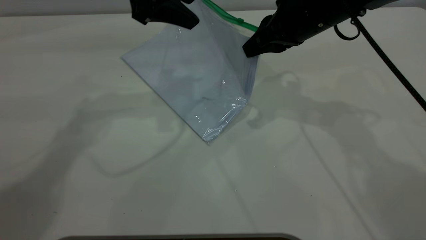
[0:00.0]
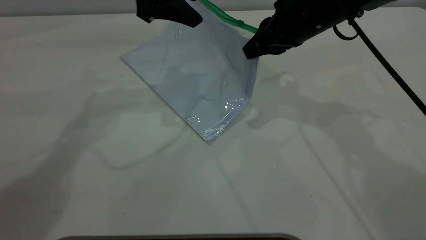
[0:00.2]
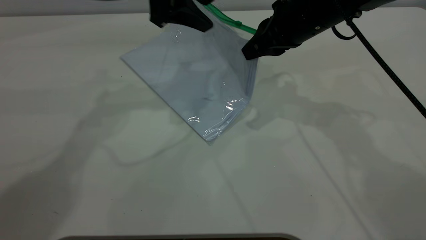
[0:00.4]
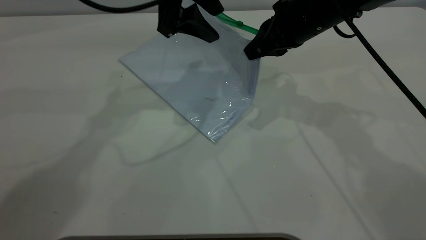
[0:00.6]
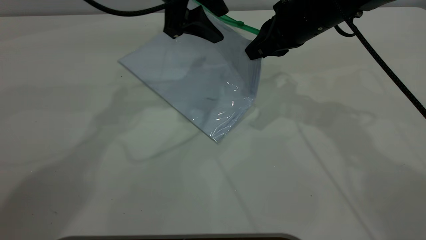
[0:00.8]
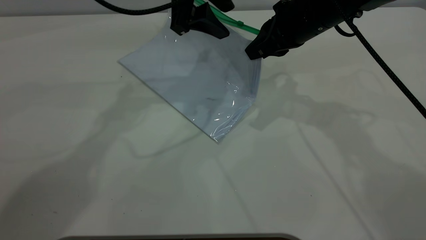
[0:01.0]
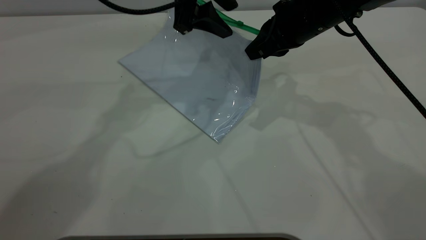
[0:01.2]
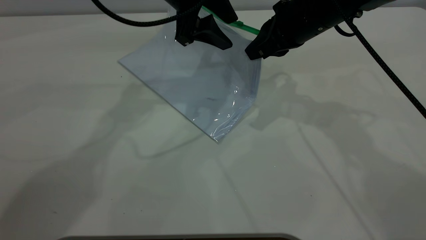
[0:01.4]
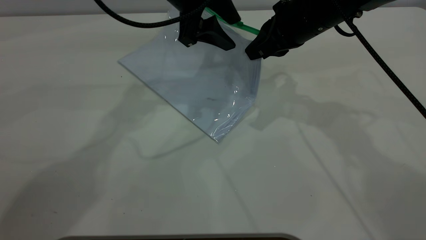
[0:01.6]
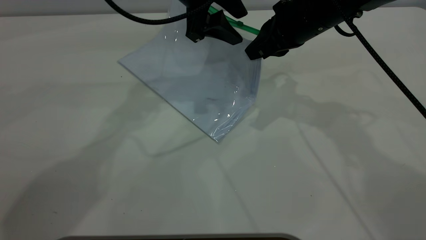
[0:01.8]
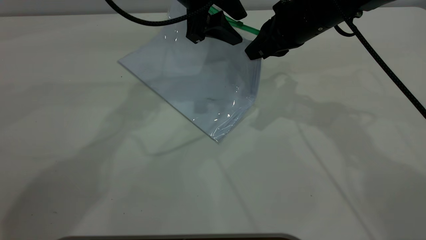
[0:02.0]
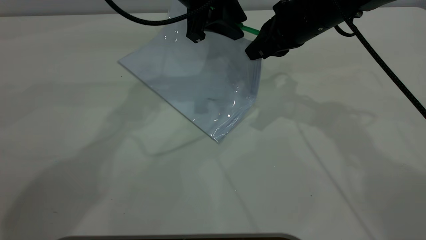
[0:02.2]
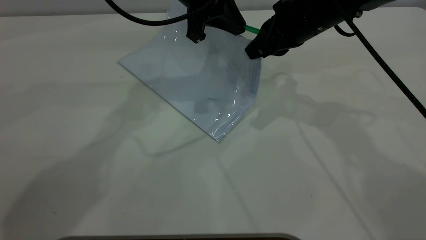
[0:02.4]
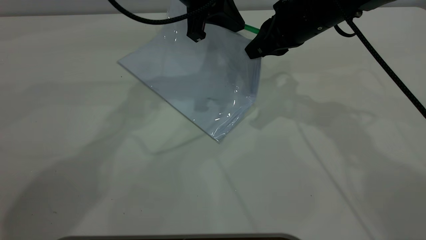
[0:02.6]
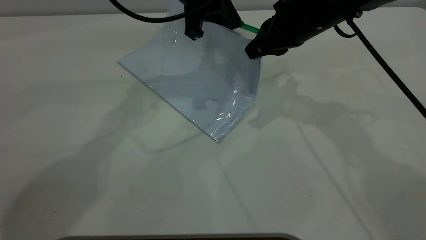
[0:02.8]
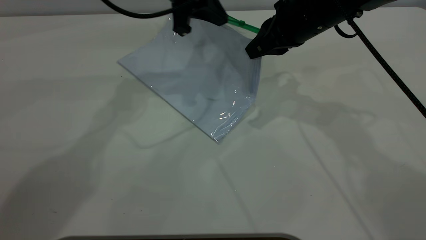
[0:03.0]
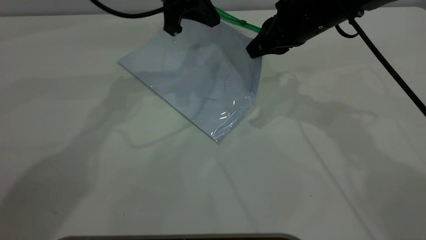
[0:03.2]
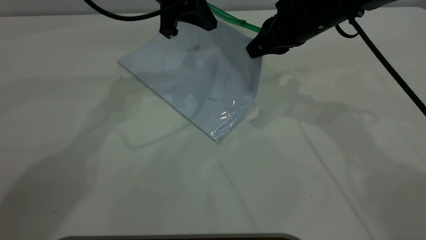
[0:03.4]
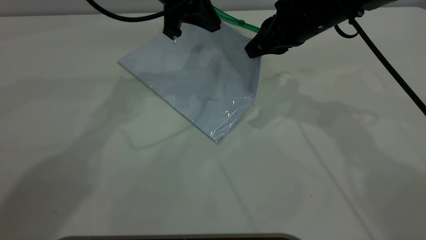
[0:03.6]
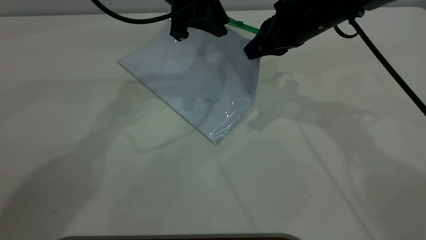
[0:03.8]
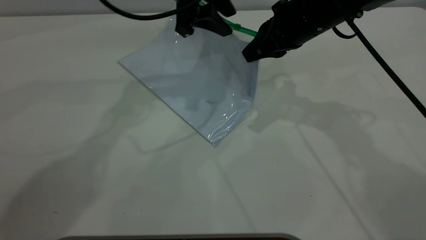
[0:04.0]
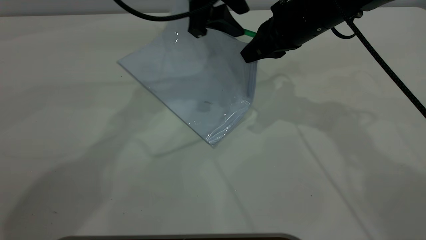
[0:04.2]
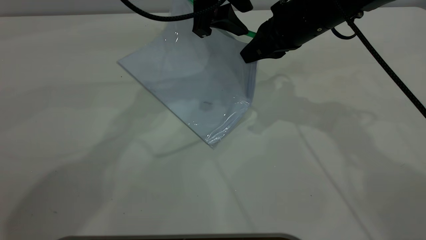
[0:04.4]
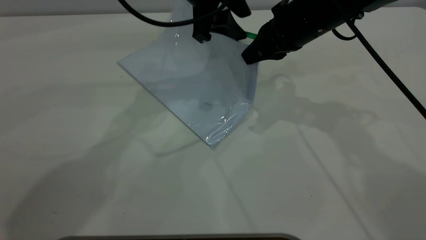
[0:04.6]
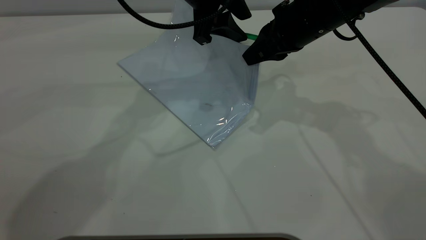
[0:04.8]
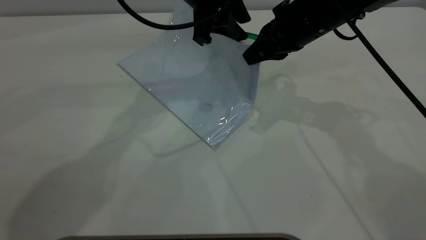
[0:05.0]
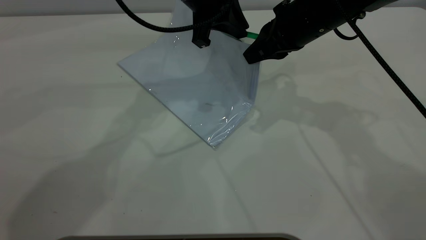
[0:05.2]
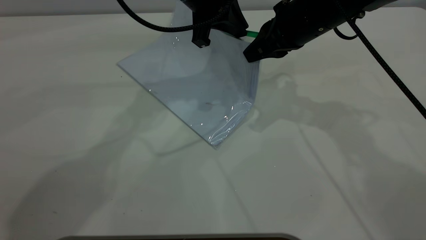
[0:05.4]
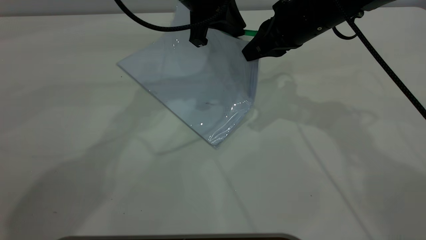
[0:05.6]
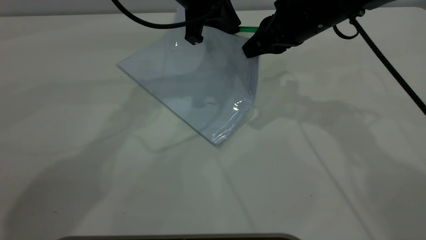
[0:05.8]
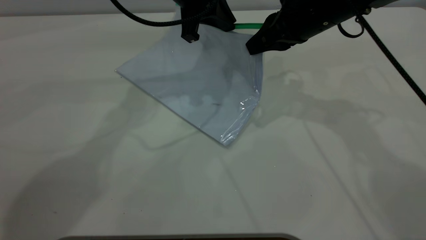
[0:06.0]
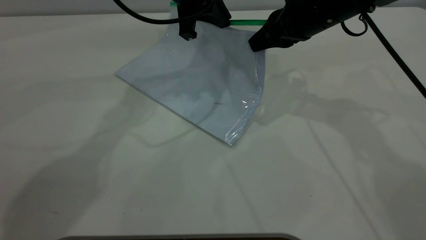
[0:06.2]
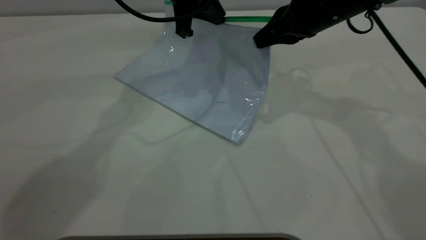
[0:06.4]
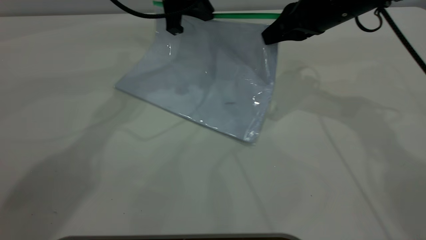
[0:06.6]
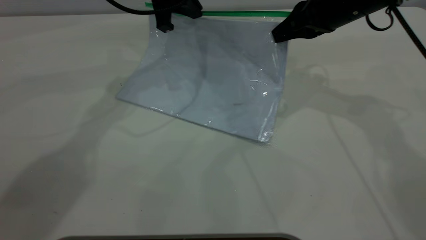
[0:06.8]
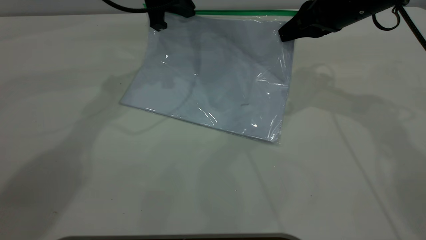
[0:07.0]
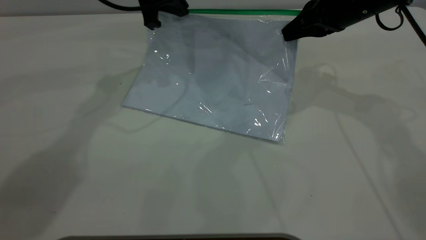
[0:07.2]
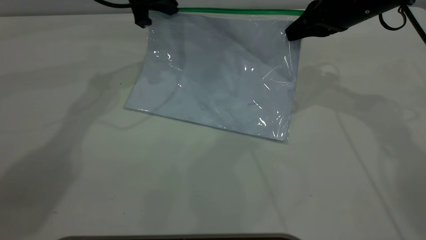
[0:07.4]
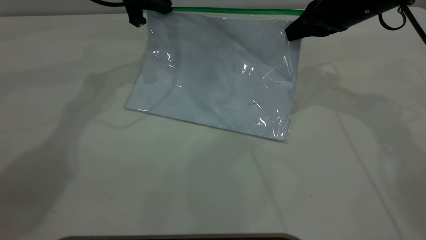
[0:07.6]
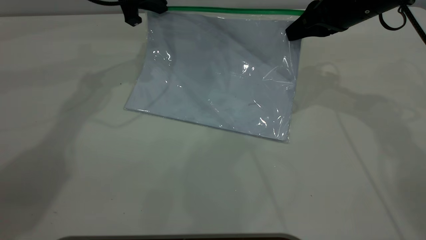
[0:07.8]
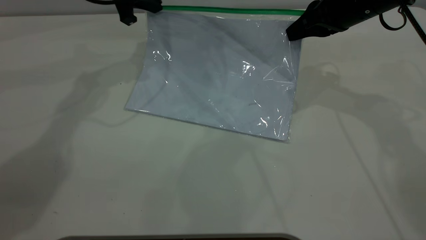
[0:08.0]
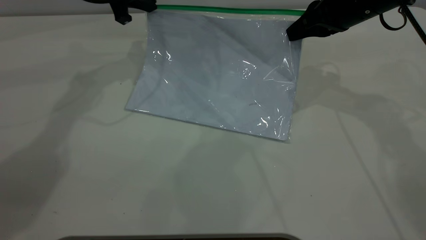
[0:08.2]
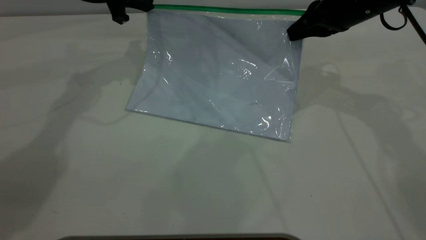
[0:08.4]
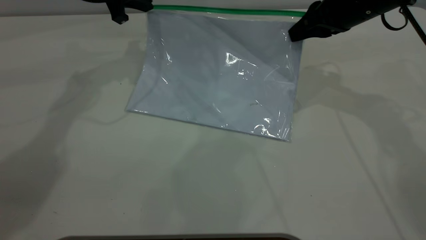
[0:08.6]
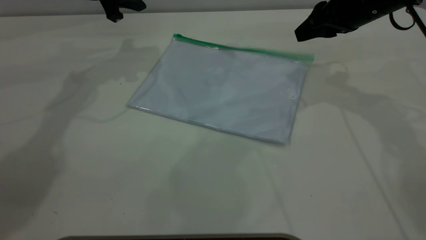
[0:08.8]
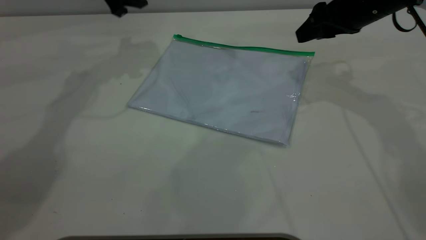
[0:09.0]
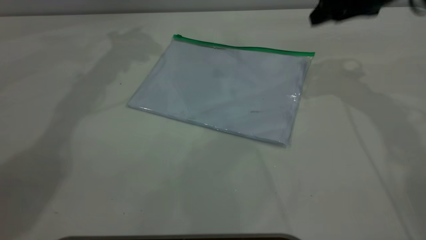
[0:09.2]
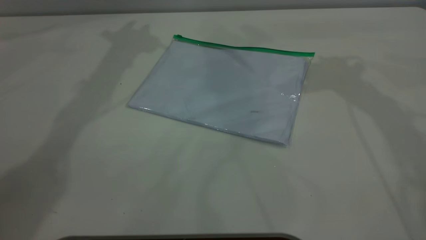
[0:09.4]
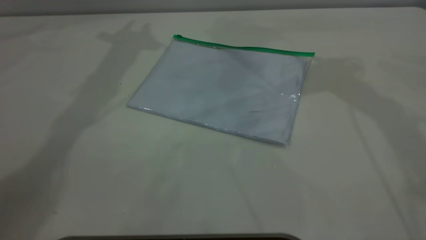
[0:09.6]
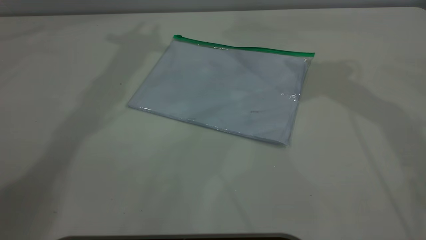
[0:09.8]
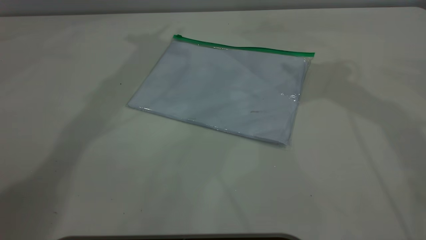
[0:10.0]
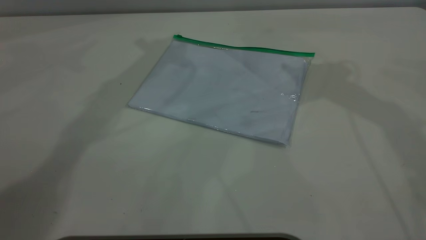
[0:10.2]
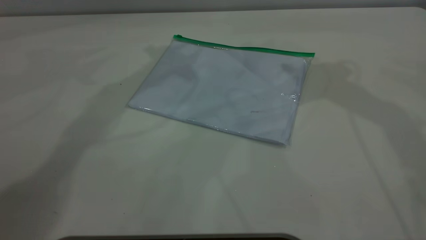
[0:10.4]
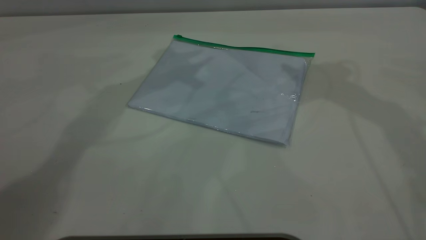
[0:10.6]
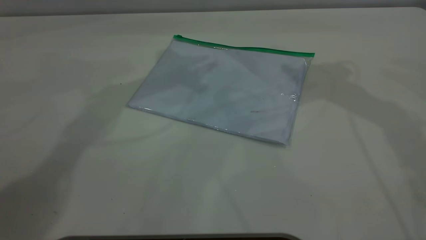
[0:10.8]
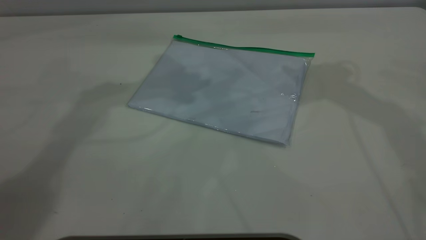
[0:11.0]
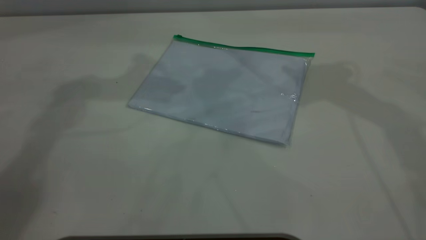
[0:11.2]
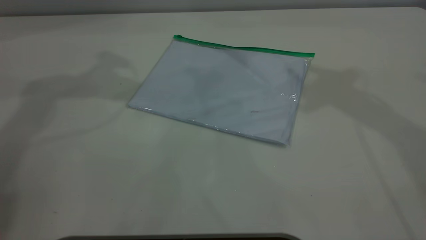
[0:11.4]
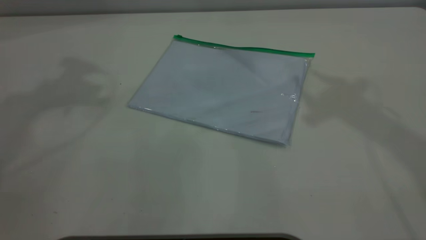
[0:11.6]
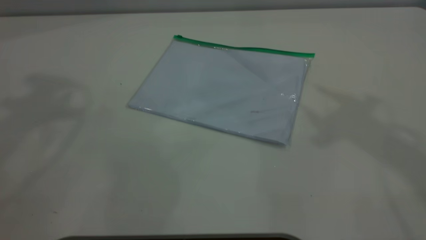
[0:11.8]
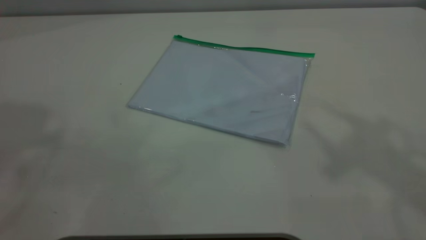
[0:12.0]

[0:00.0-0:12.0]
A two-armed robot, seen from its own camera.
Step, 0:00.0 to 0:08.6: Pulling up the zipper on the transparent plastic bag with the right gripper to close it.
0:00.0 to 0:01.6: The left gripper travels to the right by about 5 cm.
0:01.6 to 0:03.0: The left gripper closes.
0:03.0 to 0:04.4: The left gripper opens up.
0:04.4 to 0:06.0: The left gripper closes.
0:06.0 to 0:07.6: The left gripper moves to the left, some 10 cm; the right gripper shifts roughly 5 cm to the right.
0:07.6 to 0:09.0: The right gripper opens up; the left gripper opens.
0:09.0 to 0:10.4: The right gripper travels upward by approximately 15 cm.

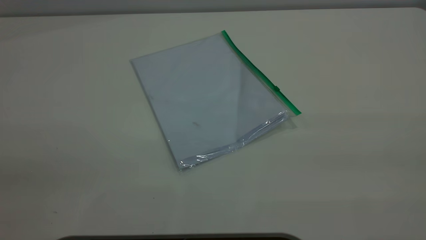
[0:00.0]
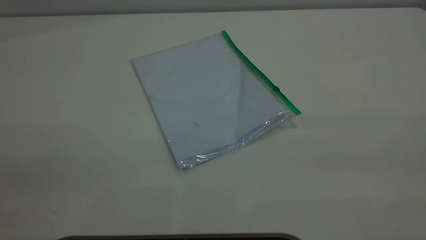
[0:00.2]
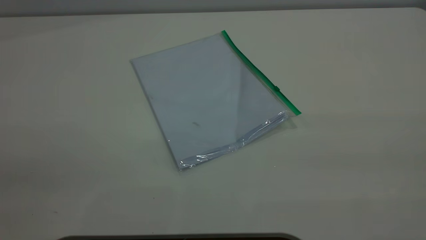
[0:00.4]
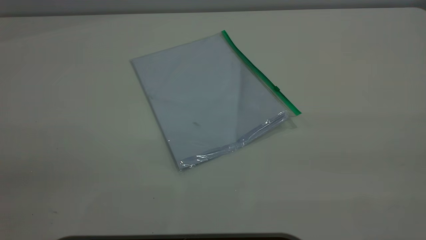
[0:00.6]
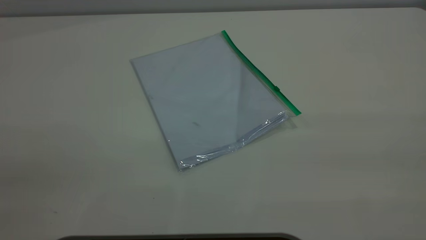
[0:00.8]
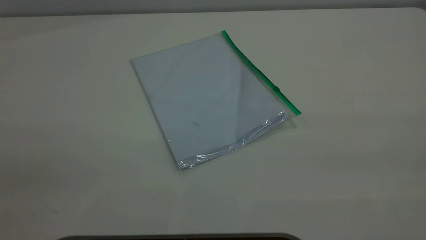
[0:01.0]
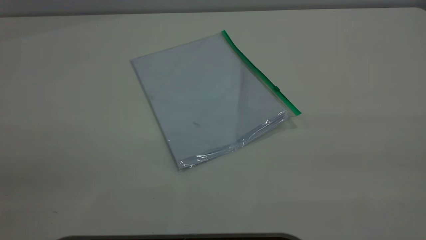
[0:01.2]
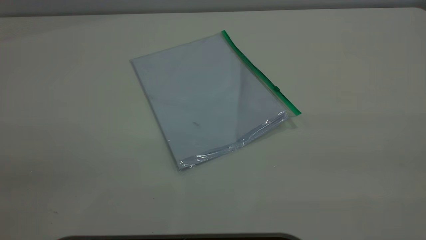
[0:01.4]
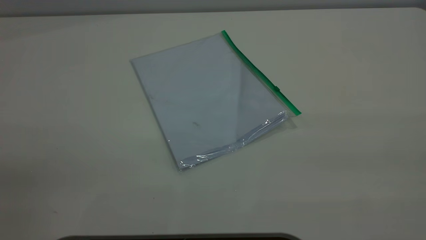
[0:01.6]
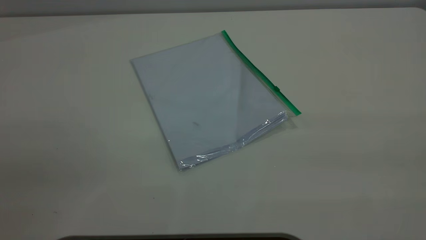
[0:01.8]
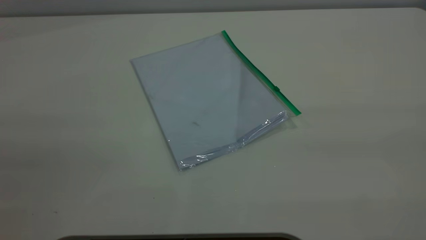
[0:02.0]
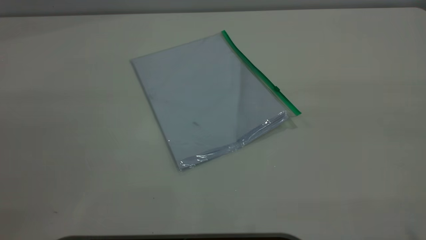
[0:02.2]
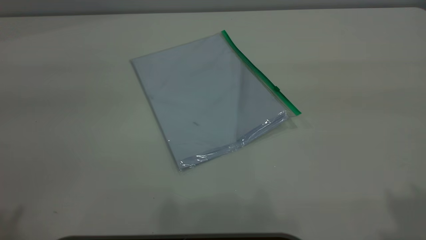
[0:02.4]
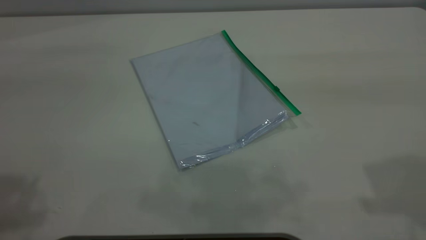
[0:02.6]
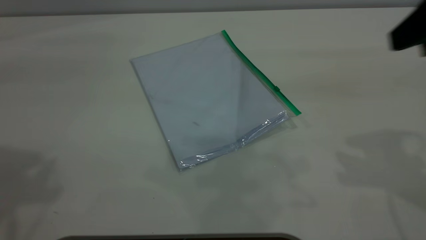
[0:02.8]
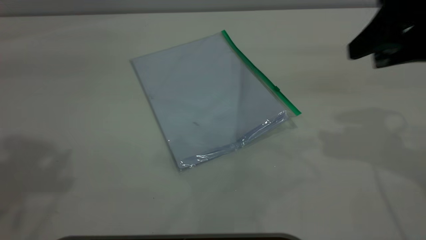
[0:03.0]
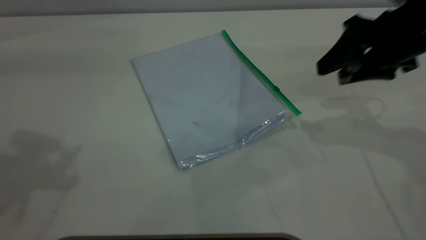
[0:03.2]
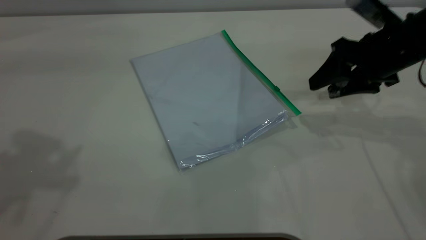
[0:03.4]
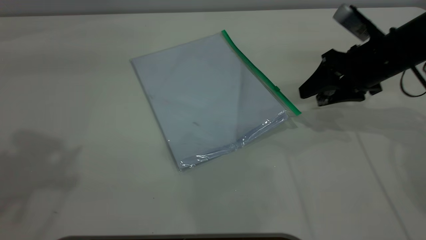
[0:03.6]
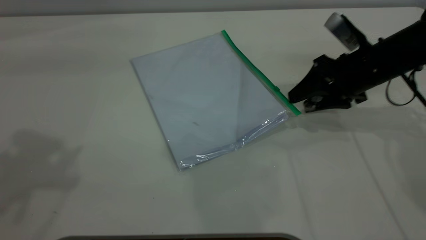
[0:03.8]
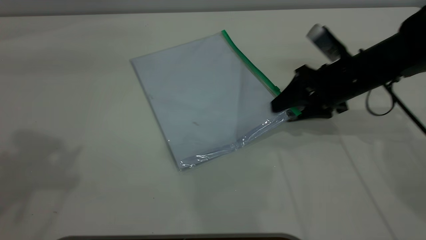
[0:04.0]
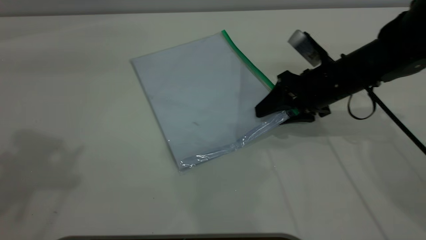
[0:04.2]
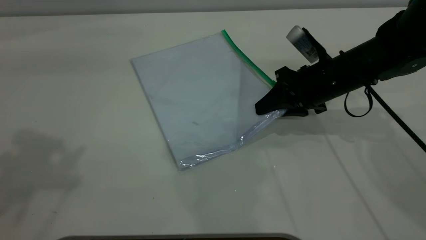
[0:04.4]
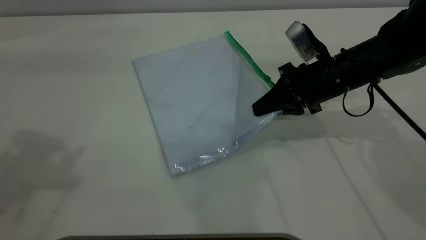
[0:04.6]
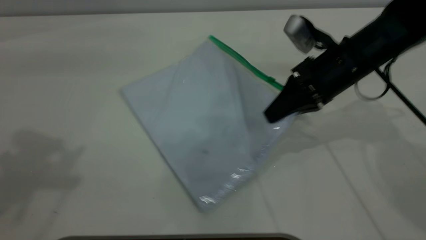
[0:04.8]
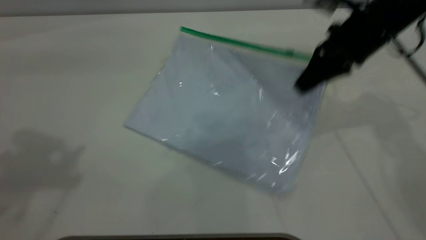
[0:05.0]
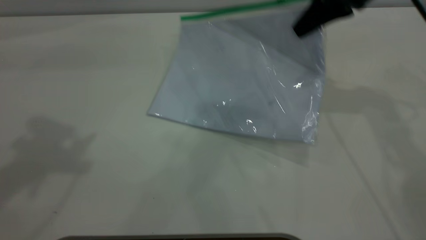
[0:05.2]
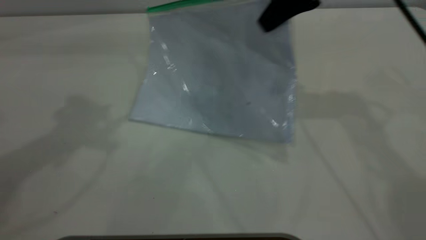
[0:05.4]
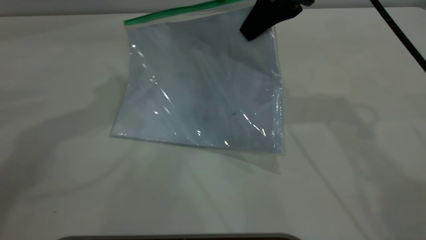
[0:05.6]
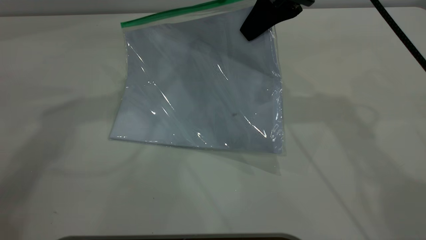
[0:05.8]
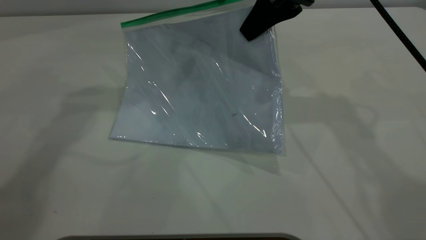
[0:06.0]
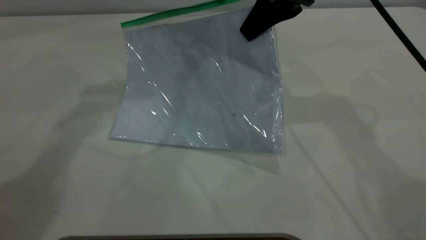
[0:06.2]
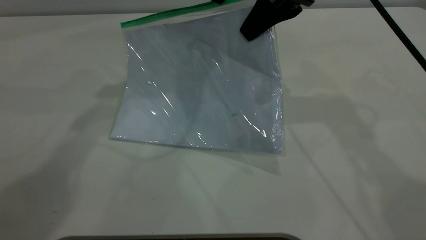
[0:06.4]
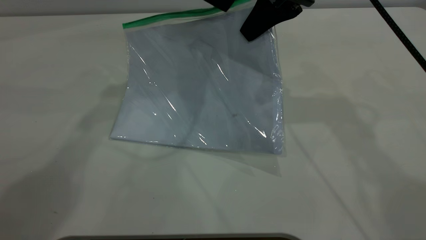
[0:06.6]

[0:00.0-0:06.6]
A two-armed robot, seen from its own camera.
Step, 0:00.0 to 0:04.6: Pick up the transparent plastic bag with the right gripper.
0:00.0 to 0:01.6: The two grippers keep their place.
0:01.6 to 0:03.2: The right gripper shifts approximately 40 cm forward and downward.
0:03.2 to 0:05.0: The right gripper travels forward by some 5 cm, reaches some 10 cm downward, then returns, and closes its fingers.
0:05.0 to 0:06.6: The left gripper travels to the right, forward and downward by about 30 cm. The right gripper goes some 10 cm to the left and upward.
